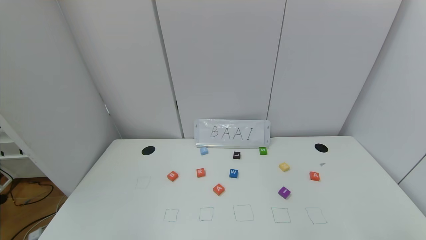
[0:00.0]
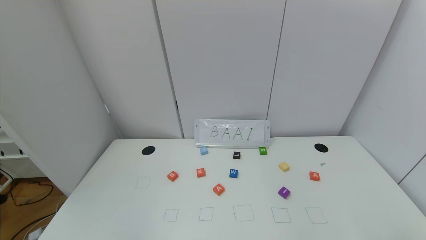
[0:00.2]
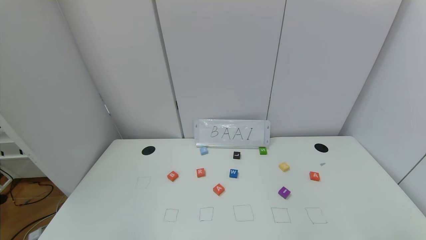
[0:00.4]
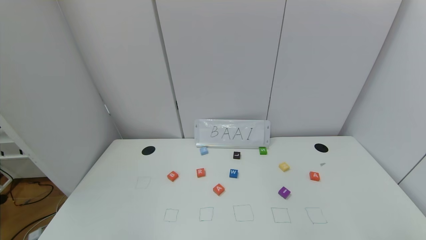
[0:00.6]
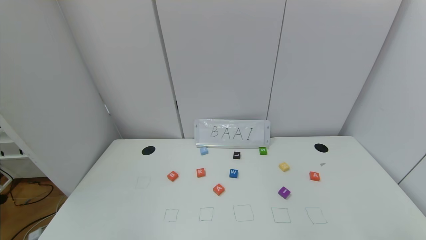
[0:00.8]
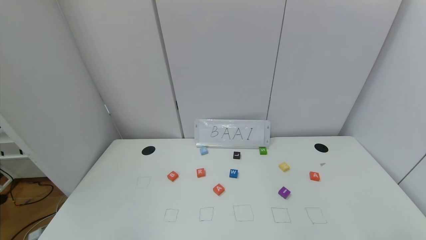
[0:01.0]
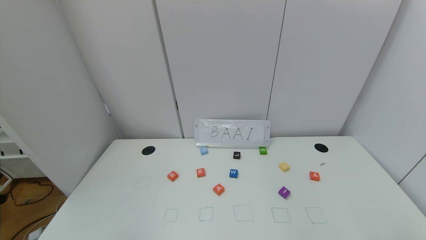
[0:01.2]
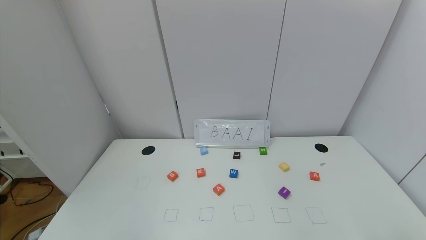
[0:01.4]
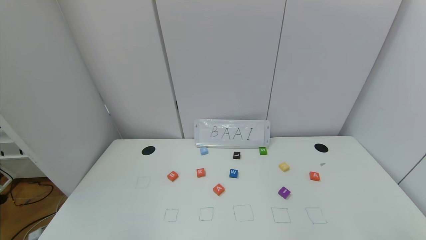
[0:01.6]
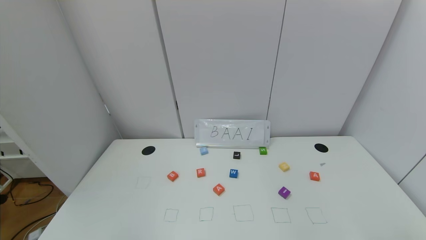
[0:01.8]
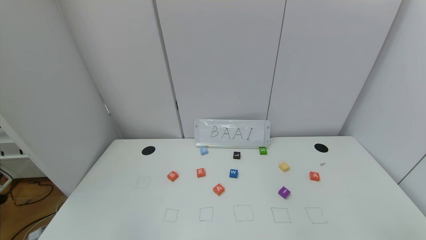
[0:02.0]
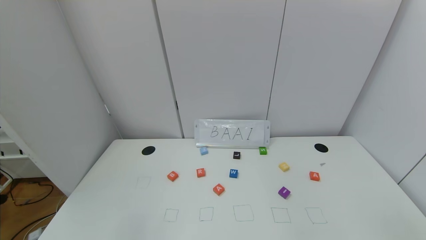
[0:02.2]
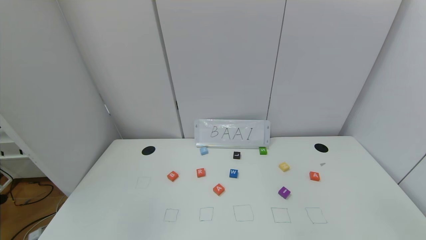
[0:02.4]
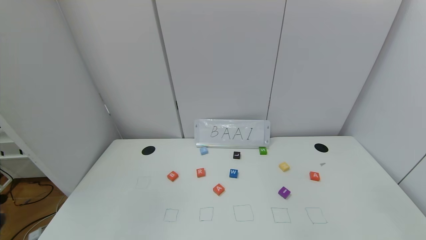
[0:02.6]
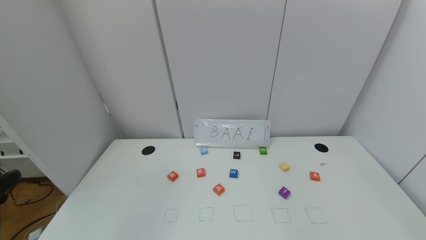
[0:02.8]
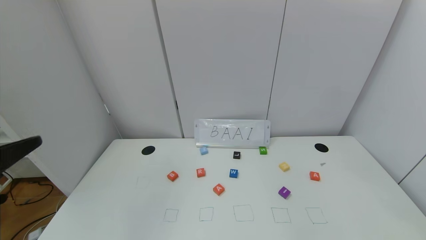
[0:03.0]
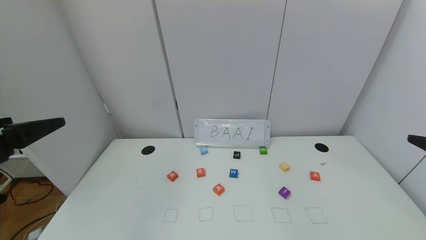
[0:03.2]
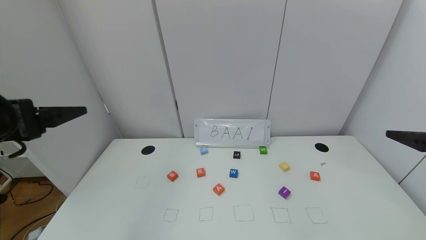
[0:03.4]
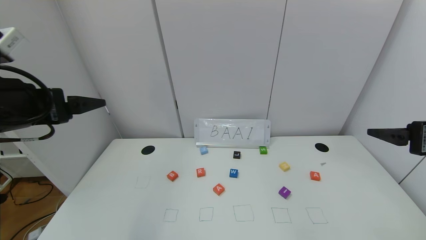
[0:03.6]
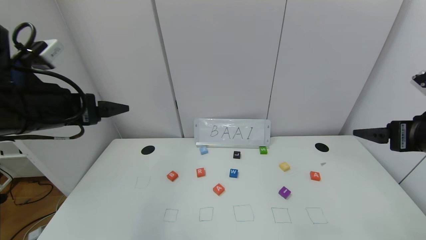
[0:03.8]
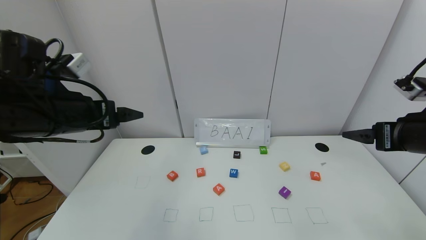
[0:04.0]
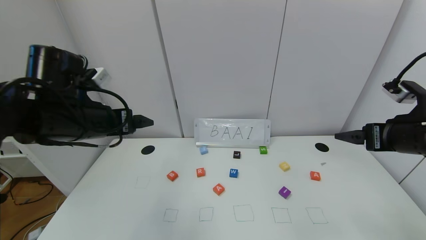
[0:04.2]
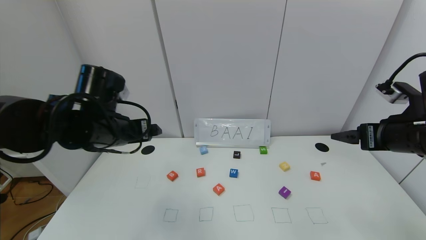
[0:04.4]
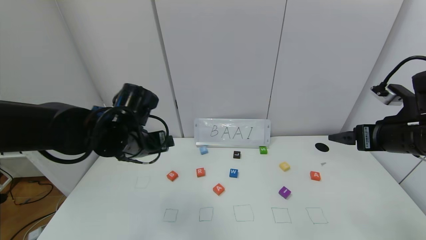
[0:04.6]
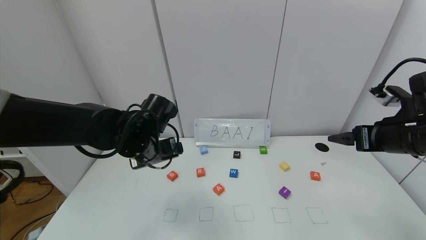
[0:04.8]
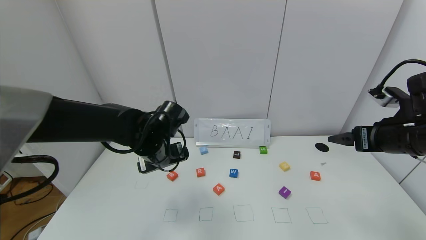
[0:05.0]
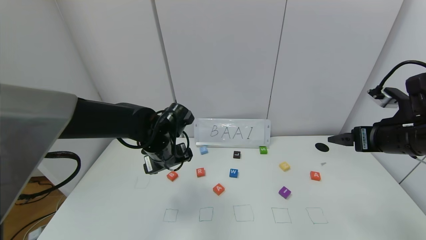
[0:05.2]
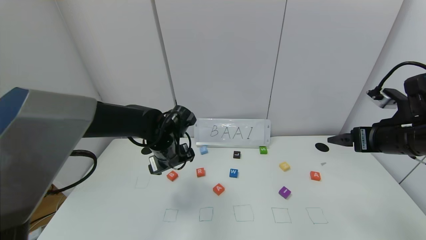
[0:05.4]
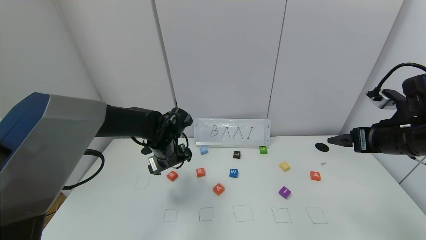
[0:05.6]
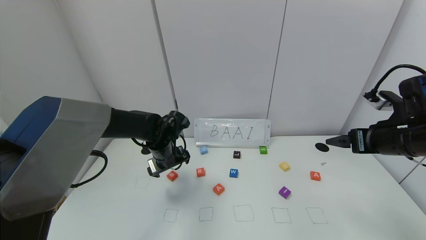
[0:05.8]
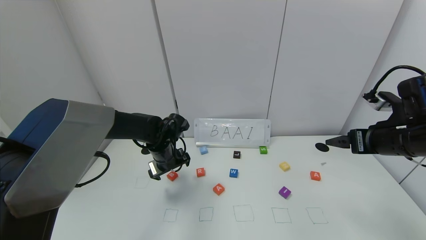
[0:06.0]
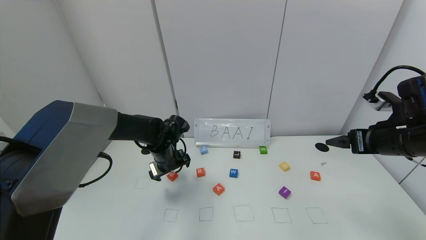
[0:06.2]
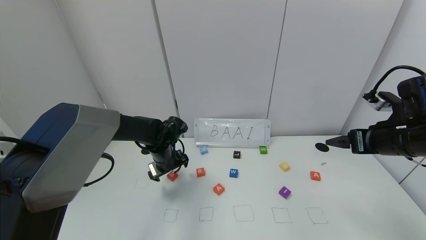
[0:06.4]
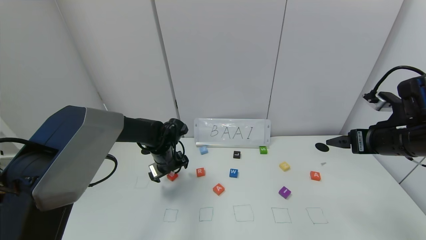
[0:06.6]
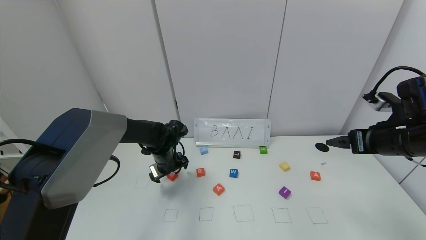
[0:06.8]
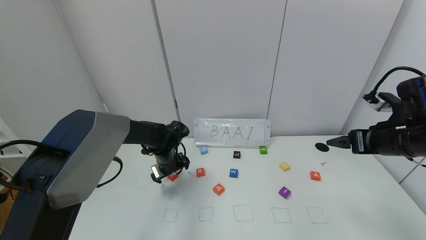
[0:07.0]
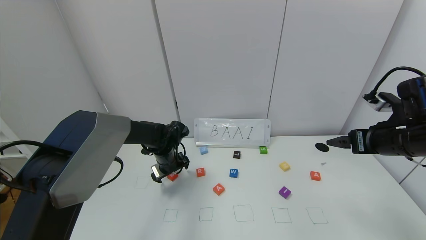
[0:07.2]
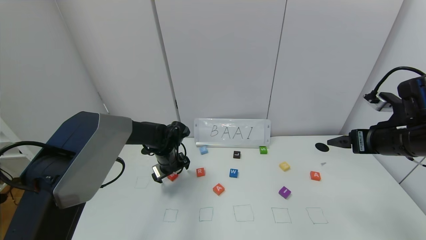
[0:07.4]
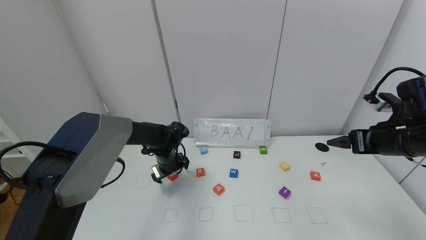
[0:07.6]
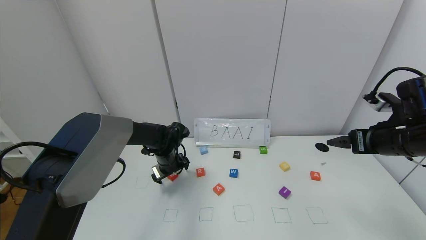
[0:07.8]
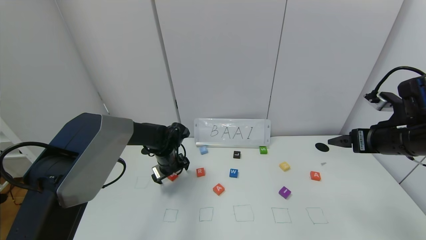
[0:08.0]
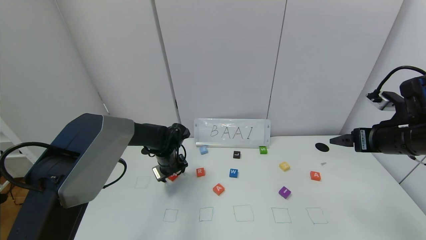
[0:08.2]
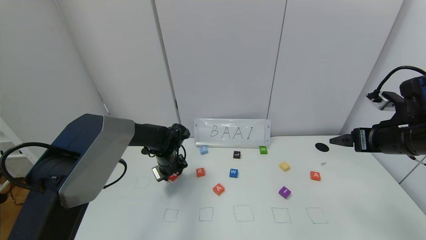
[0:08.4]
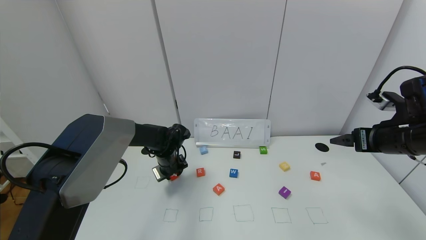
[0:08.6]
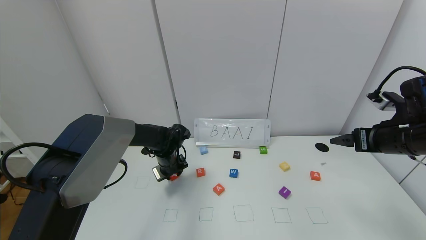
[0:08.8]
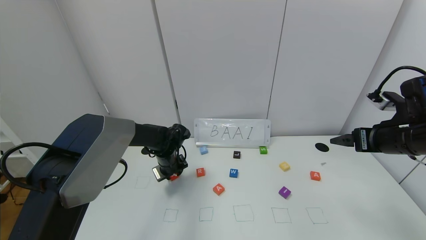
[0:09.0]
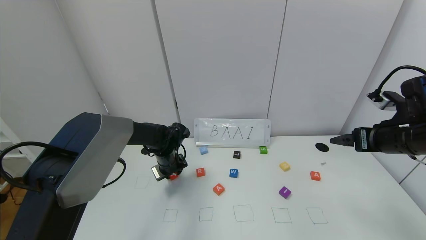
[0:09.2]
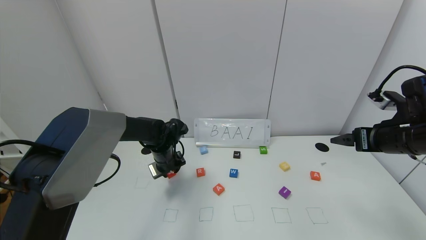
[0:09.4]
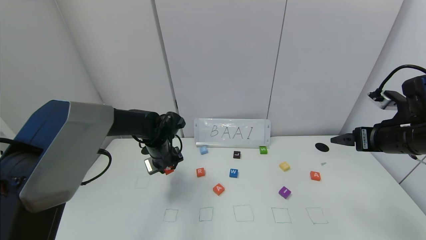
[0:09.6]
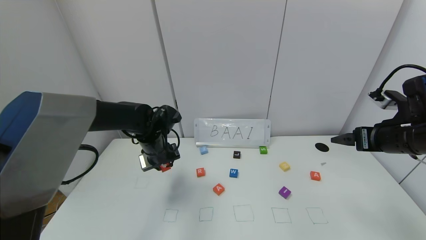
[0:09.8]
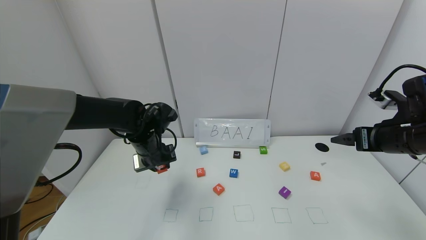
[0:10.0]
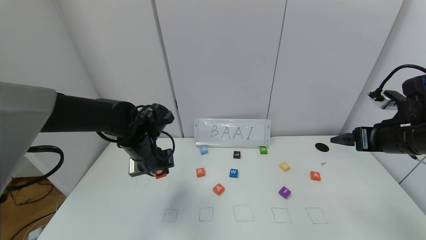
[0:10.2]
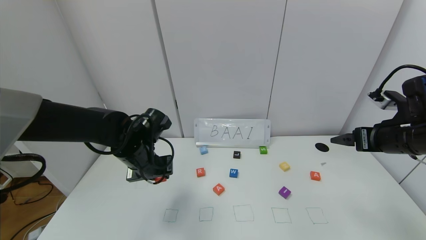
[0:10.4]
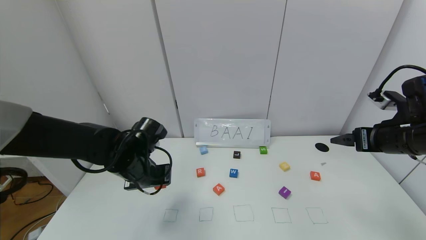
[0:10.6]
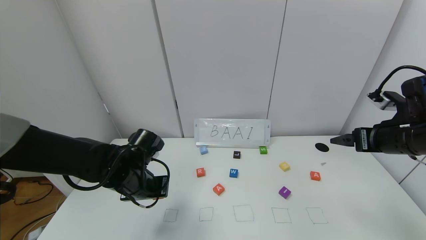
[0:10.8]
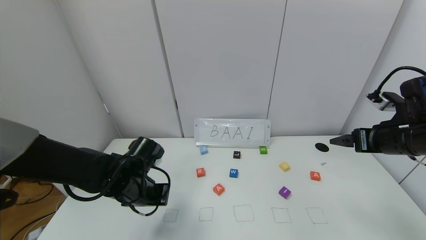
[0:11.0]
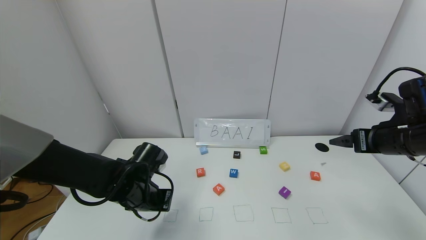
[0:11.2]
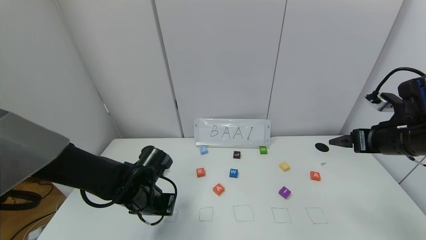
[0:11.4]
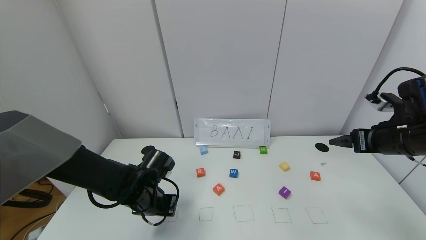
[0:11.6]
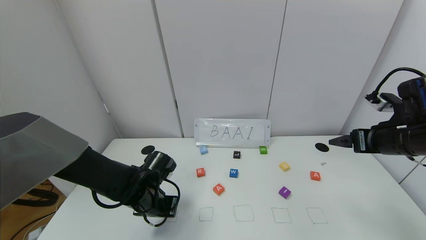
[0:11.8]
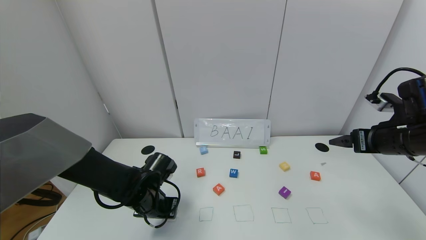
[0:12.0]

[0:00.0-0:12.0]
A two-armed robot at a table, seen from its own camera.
Task of the whole recording: use the gripper to find blocks with the letters b, a, a, and i on the table and arrange them into BAAI, then find r and N and turn the arranged baai into brian.
0:00.0 to 0:01.6: Neither gripper changes place.
0:01.6 to 0:03.0: The left gripper travels upward and forward by roughly 25 cm.
0:03.0 to 0:04.4: The right gripper travels forward by approximately 15 cm. Meanwhile the left gripper shifts about 25 cm forward and to the right.
0:04.4 to 0:06.0: The left gripper moves downward and forward, roughly 15 cm.
0:06.0 to 0:07.6: The left gripper changes place by roughly 5 cm.
0:07.6 to 0:09.0: The left gripper closes its fingers.
0:09.0 to 0:10.4: The left gripper heads backward and upward, covering approximately 15 cm.
0:10.4 to 0:12.0: The left gripper moves downward, about 10 cm.

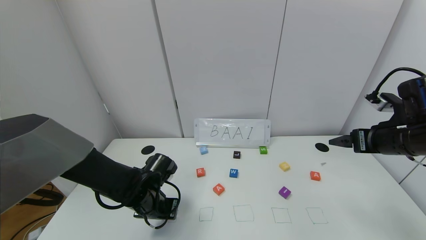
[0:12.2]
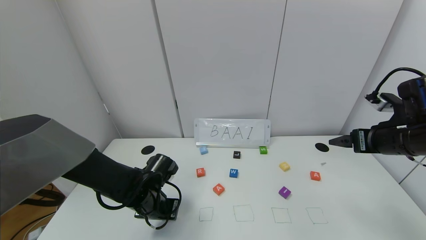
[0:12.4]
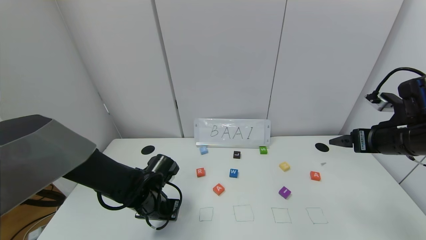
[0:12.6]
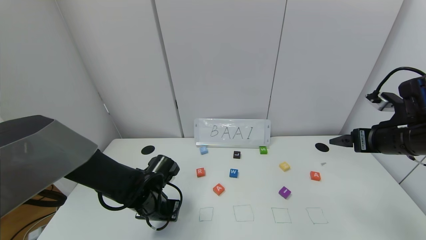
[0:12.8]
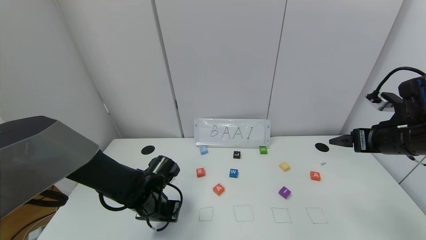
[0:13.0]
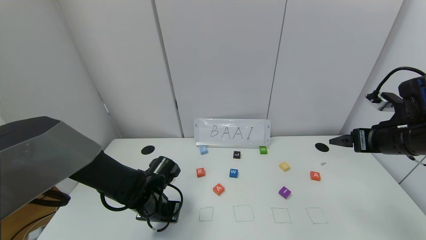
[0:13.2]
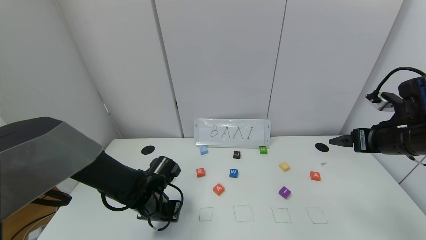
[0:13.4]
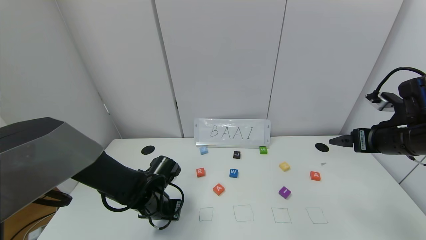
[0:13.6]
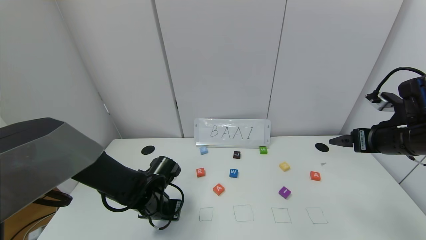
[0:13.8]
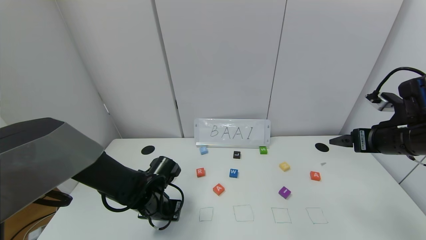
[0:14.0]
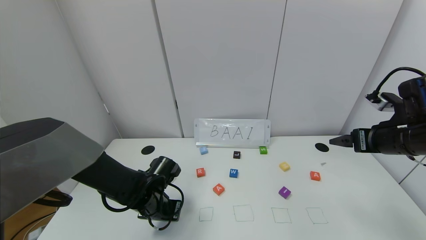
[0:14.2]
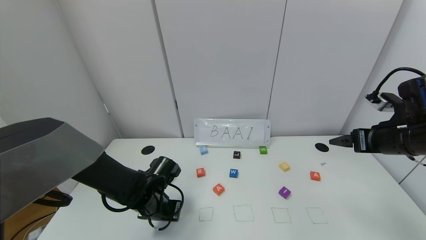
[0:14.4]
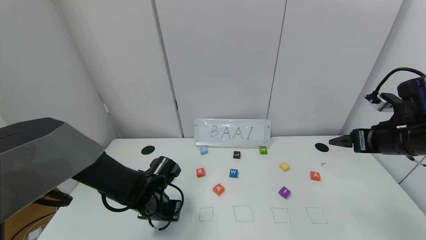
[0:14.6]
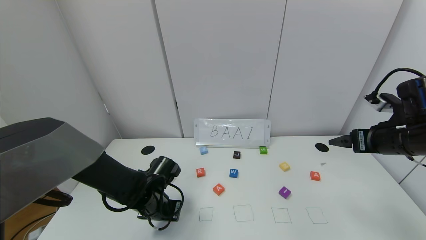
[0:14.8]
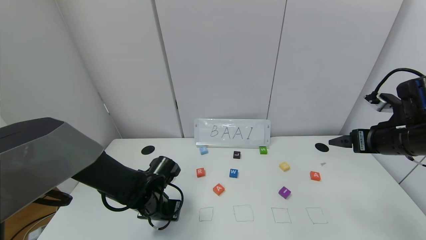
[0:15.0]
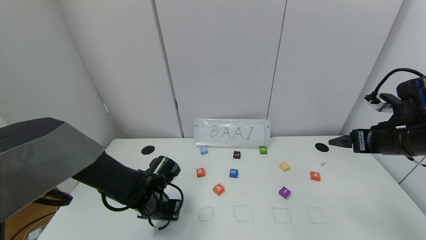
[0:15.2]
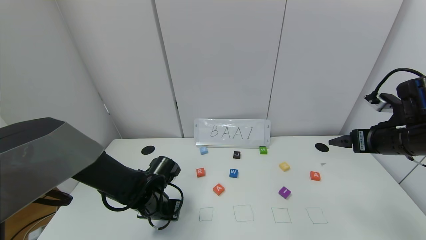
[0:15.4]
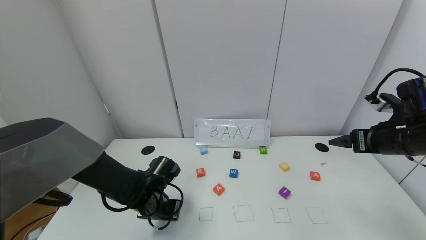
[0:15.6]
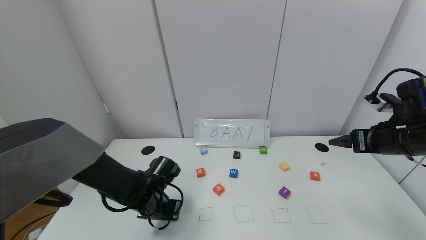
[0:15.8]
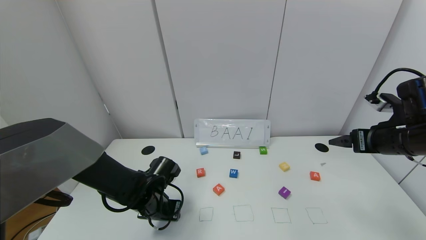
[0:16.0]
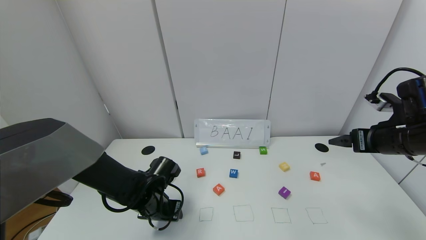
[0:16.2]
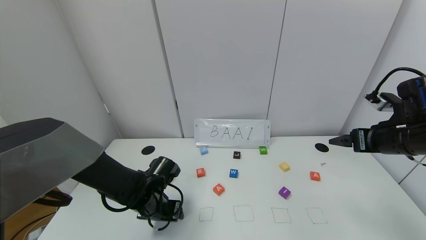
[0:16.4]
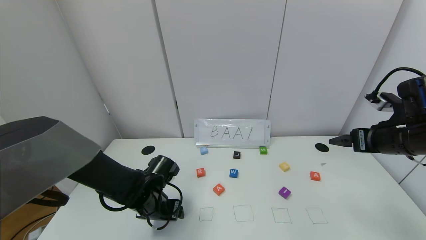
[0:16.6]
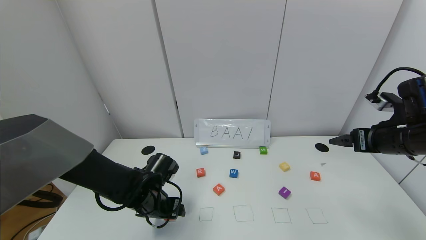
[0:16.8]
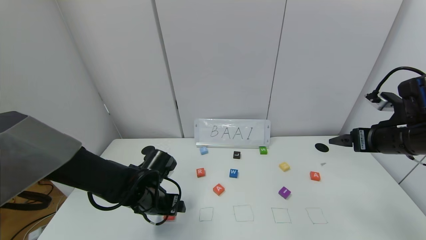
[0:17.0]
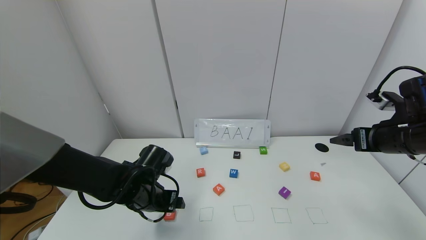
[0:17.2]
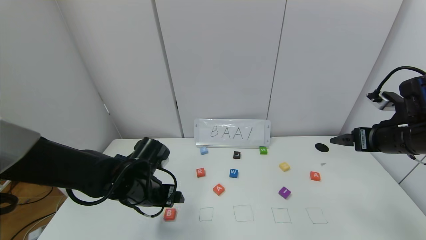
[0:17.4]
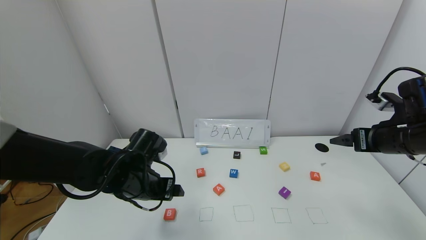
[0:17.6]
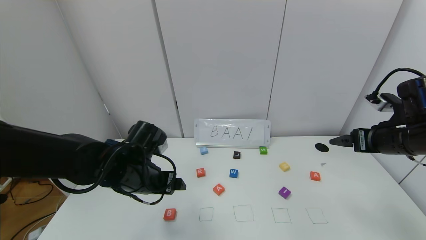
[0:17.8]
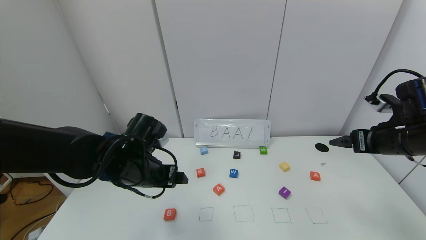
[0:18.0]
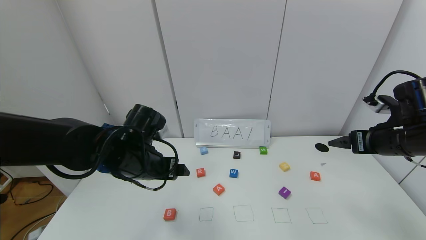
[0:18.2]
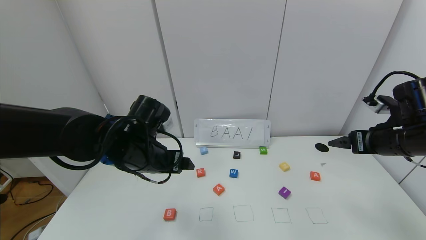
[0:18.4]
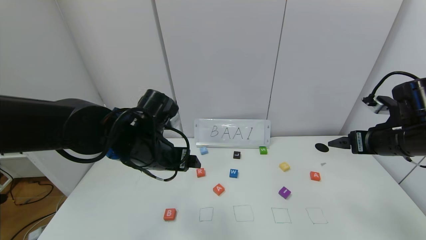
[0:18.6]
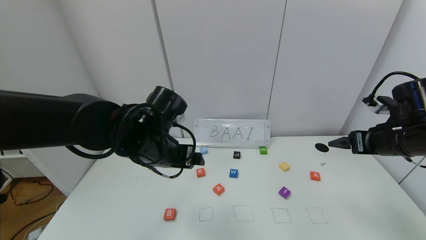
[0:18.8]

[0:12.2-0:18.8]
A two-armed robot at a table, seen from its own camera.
Task of the whole recording: use the gripper to find blocks with the letters b, a, a, and i on the table and arrange them into BAAI, then find r and N and turn the arranged baai into brian.
Step, 0:12.2 to 0:17.2: Place the block B in the first location.
0:12.2 to 0:15.4: Neither gripper changes place.
0:15.4 to 0:17.2: The left gripper opens up.
0:17.2 to 0:18.8: The left gripper travels upward and to the right by some 15 cm.
